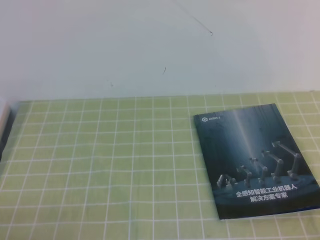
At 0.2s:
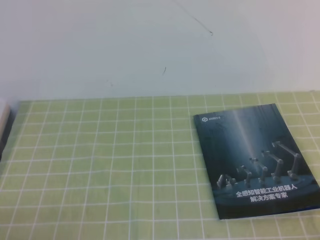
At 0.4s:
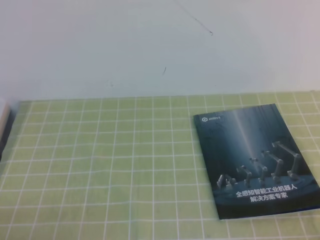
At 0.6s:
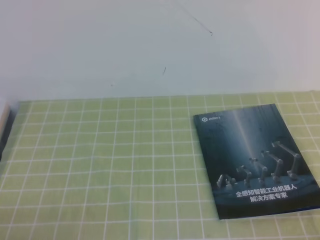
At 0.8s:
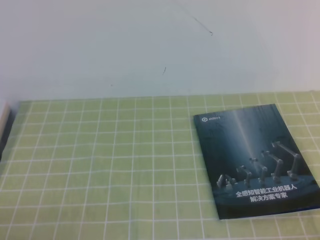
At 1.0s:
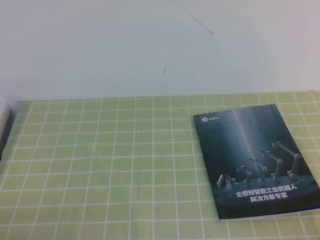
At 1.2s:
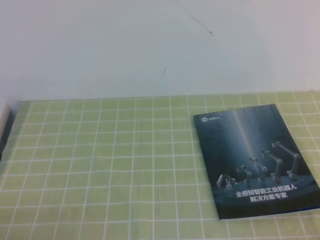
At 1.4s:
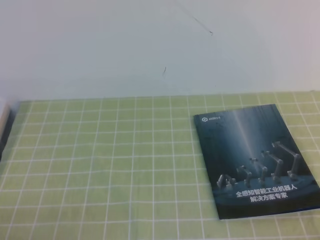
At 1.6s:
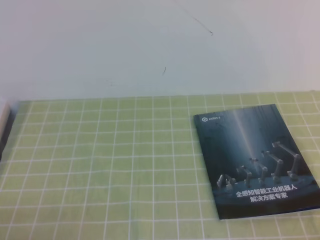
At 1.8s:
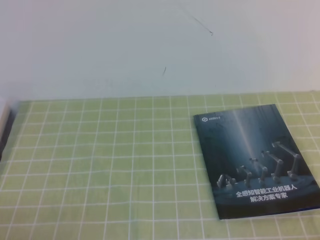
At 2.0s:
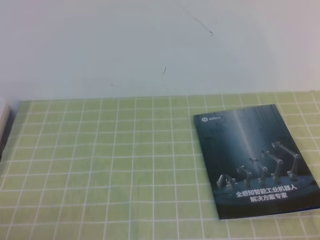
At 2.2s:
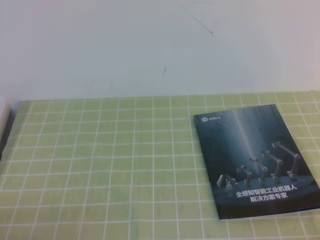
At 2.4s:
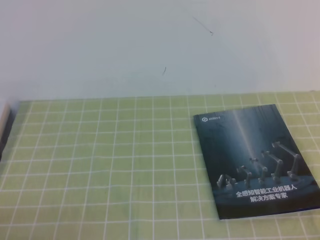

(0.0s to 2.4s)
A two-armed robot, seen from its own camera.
Task of the whole recording: on the green tablecloth, hold the book with one hand and close it with the other.
1.2s - 2.4s: Both grippers stay put.
